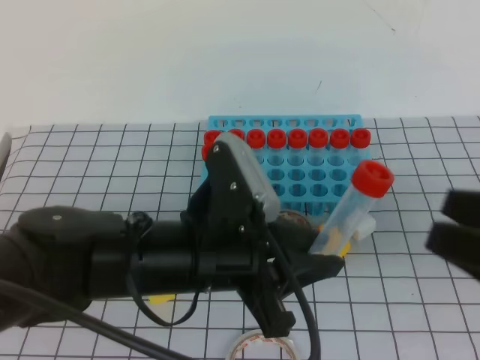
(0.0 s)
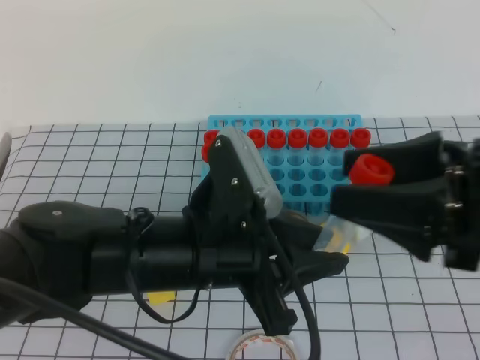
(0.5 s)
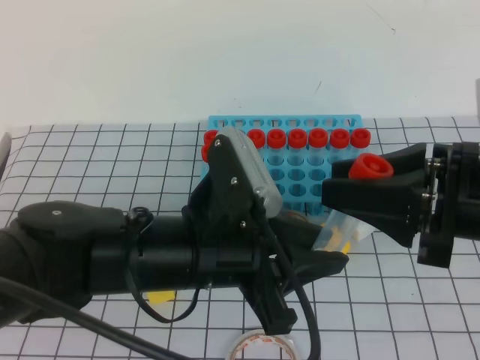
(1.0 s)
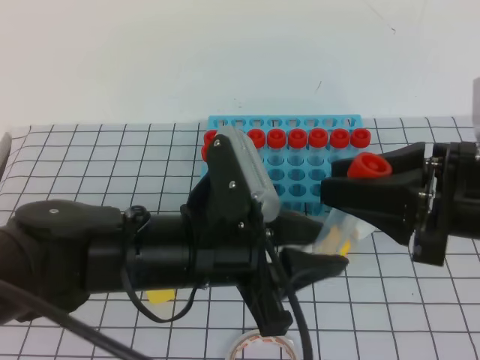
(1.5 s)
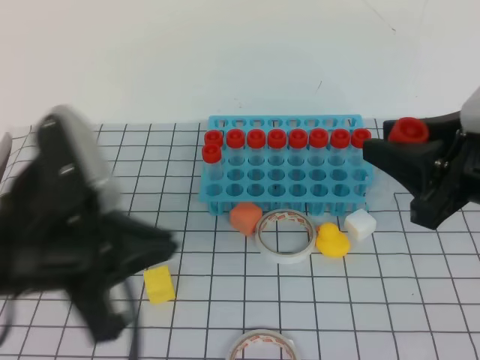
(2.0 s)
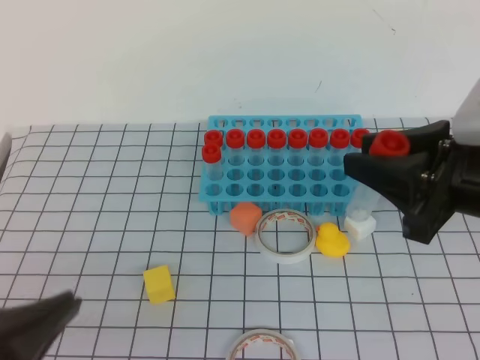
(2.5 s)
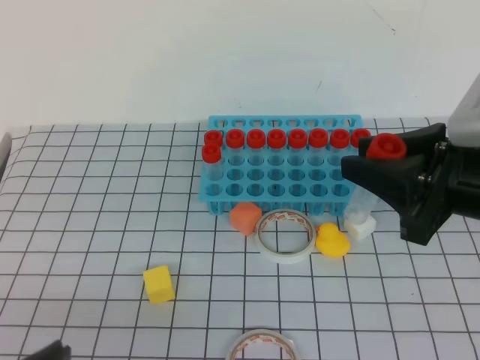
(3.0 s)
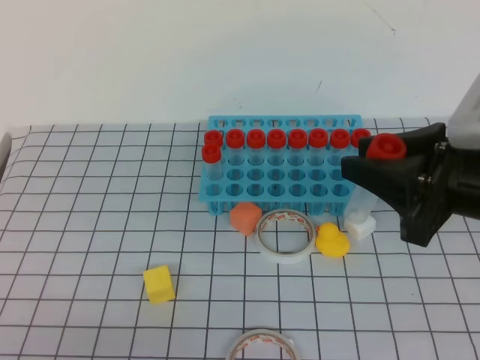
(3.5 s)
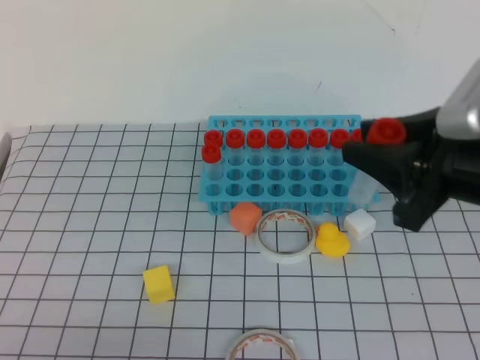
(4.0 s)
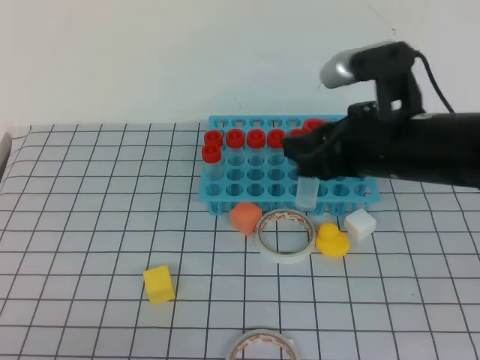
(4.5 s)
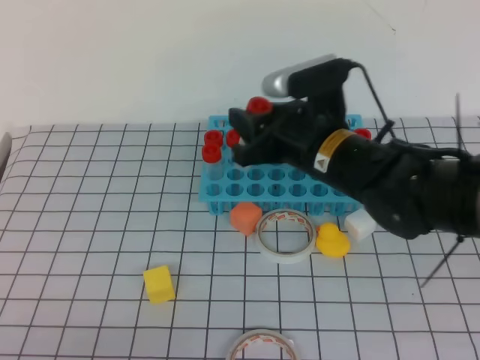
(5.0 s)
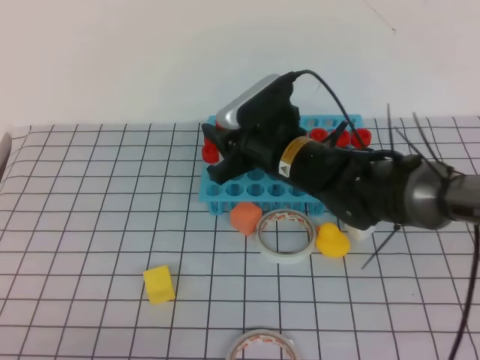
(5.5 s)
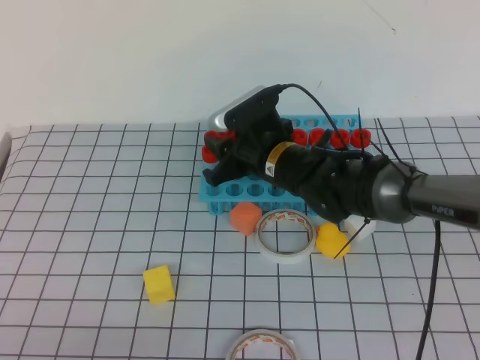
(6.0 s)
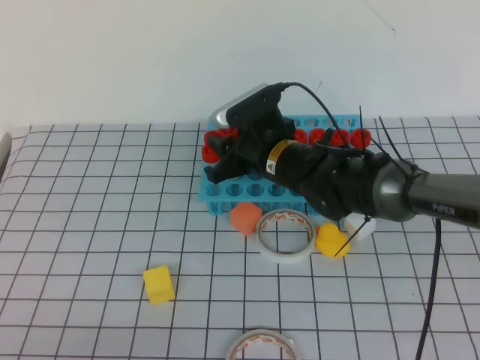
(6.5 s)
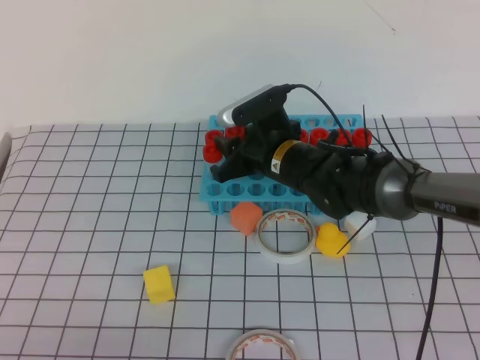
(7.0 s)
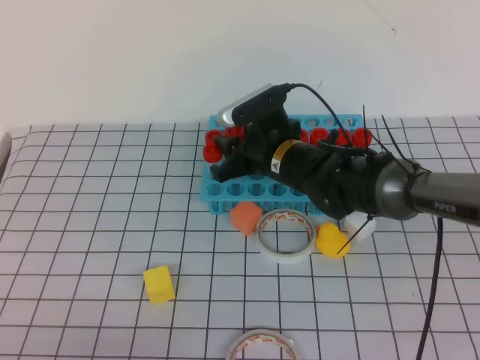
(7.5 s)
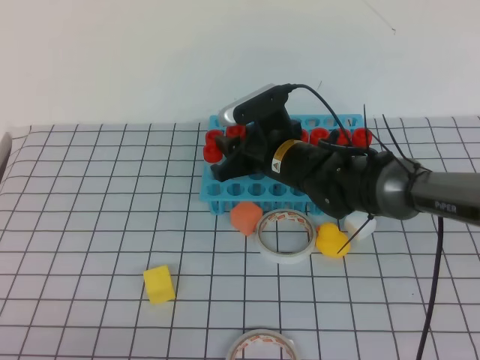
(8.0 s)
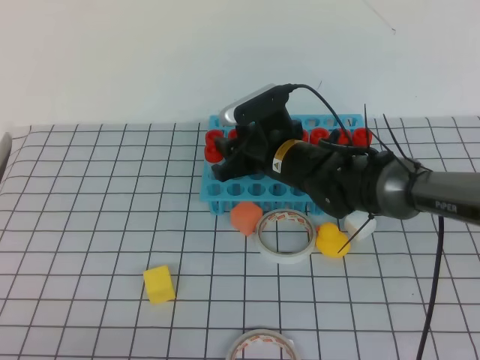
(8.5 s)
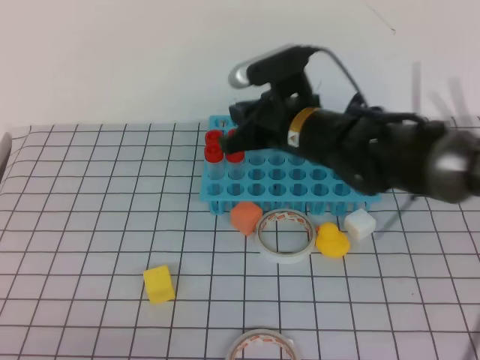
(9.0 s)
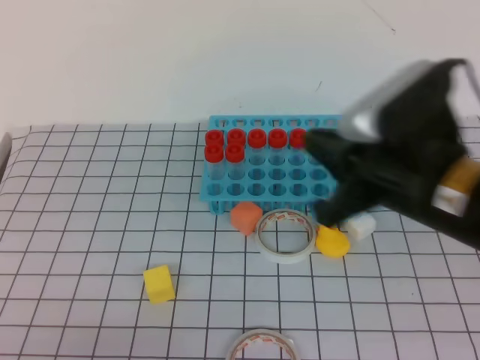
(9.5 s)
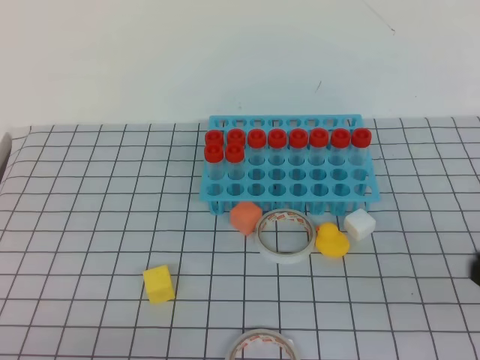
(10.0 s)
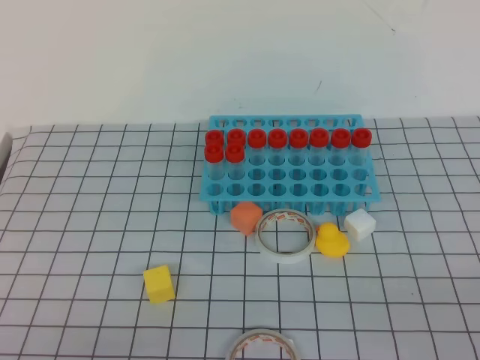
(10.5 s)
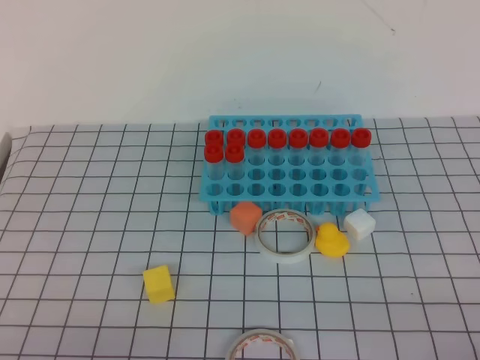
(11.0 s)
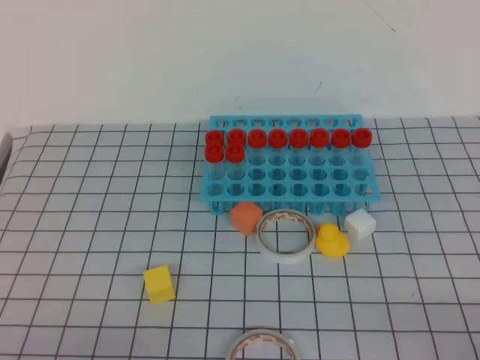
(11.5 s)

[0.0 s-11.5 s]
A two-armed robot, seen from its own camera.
0.0 to 2.0 s: The left gripper is displaced to the left and upward by roughly 10 cm; the right gripper moves forward, approximately 10 cm, and closes.
2.0 to 4.0 s: The left gripper goes some 20 cm backward, downward and to the left, and closes.
4.0 to 6.0 s: The right gripper travels forward, to the left and downward by approximately 25 cm.
6.0 to 7.5 s: Both grippers stay put.
7.5 to 9.5 s: The right gripper moves backward, upward and to the right, some 25 cm, and closes its fingers.
9.5 to 11.5 s: The right gripper moves to the right, backward and downward, some 30 cm.

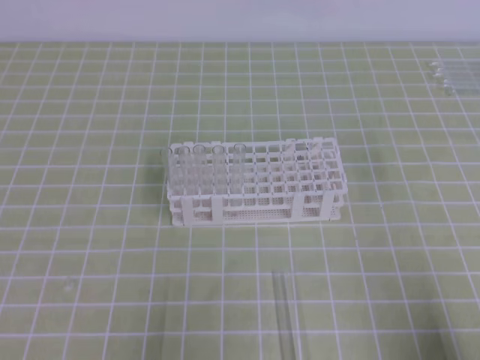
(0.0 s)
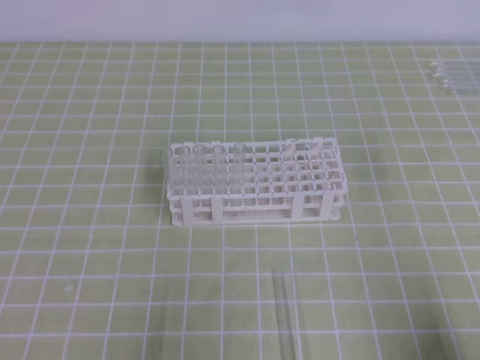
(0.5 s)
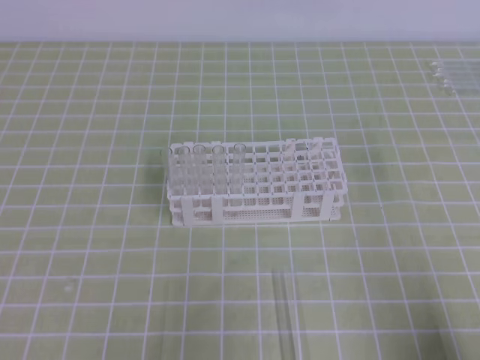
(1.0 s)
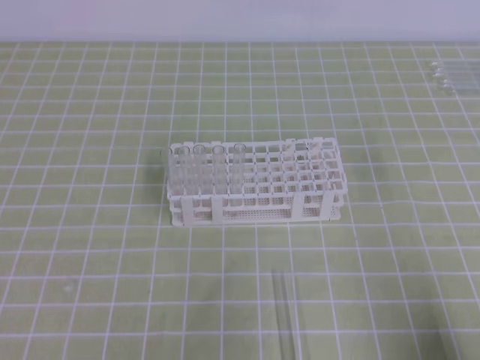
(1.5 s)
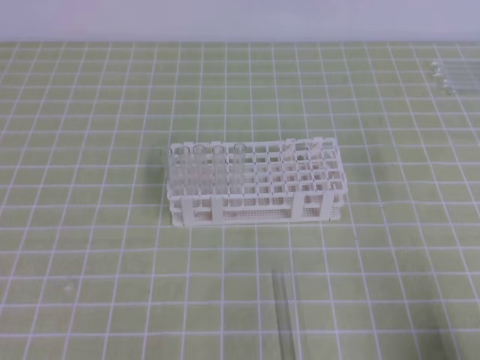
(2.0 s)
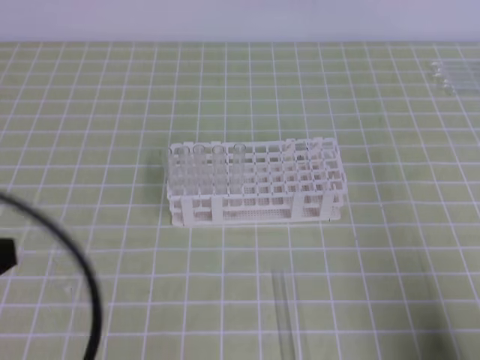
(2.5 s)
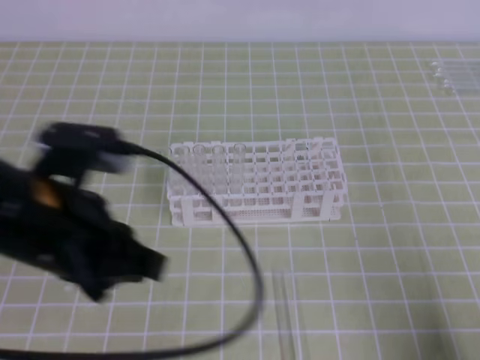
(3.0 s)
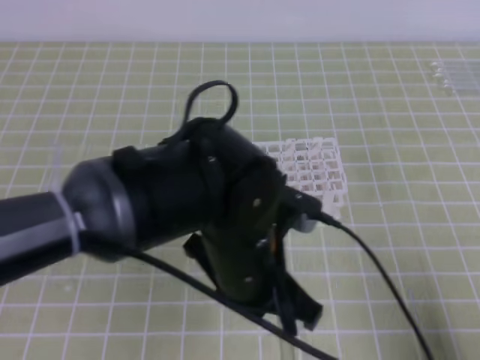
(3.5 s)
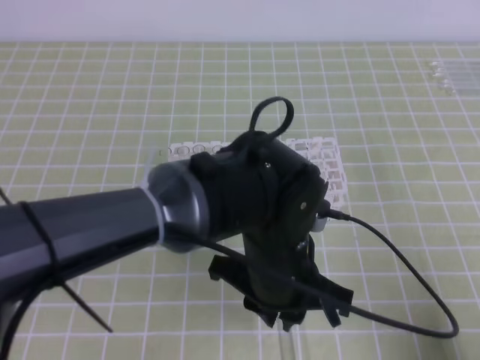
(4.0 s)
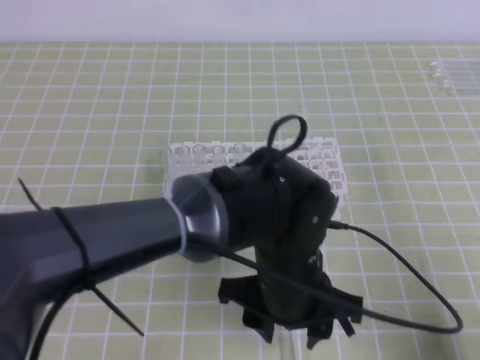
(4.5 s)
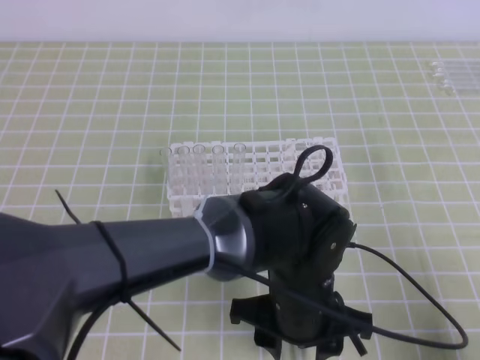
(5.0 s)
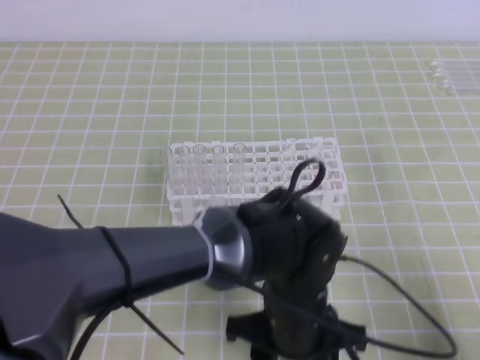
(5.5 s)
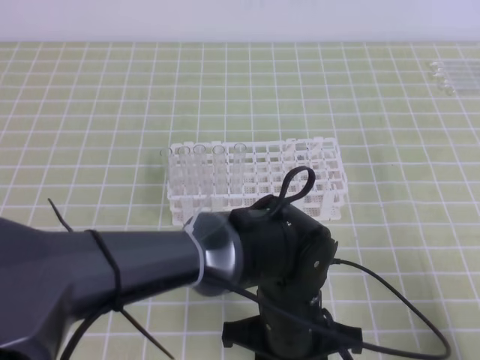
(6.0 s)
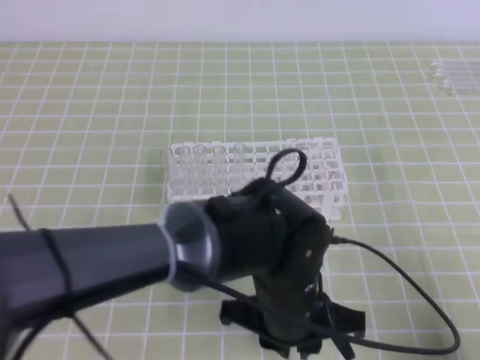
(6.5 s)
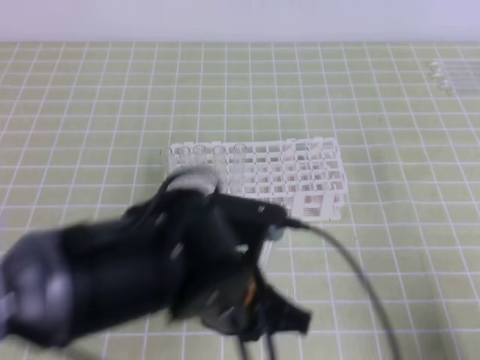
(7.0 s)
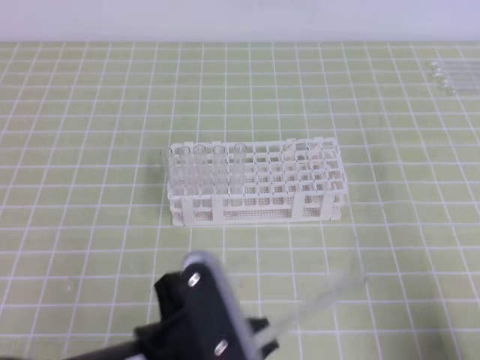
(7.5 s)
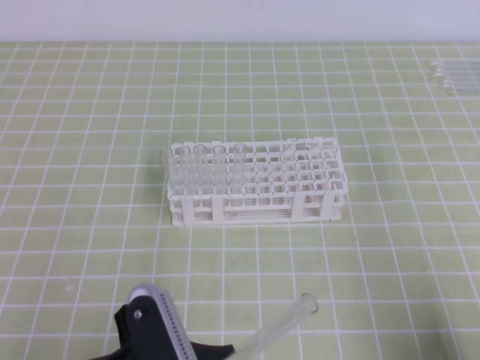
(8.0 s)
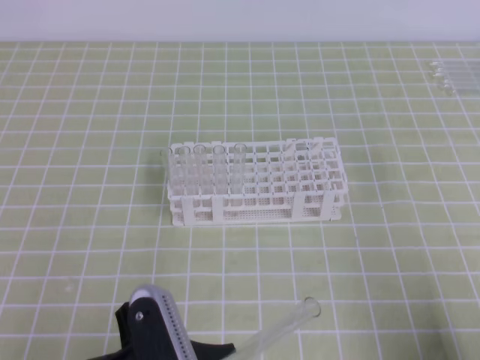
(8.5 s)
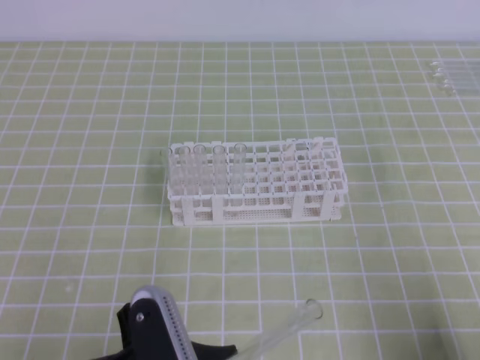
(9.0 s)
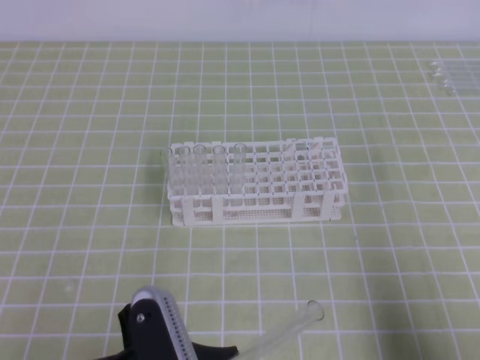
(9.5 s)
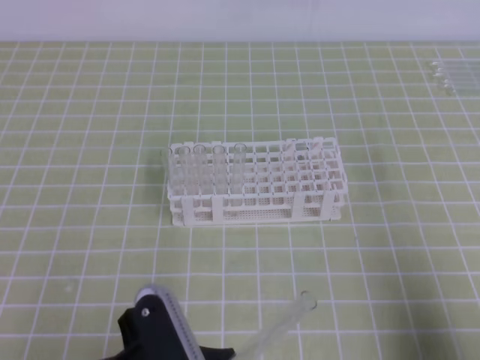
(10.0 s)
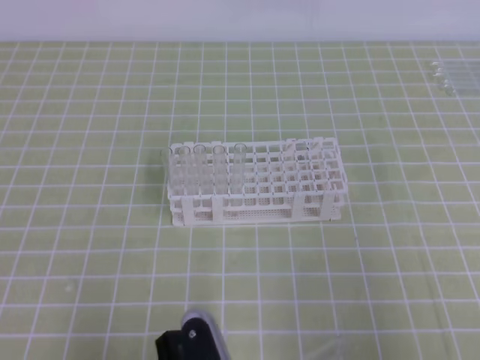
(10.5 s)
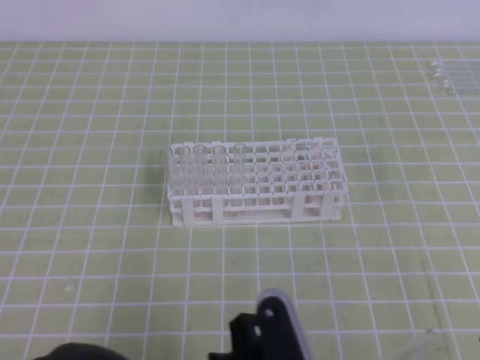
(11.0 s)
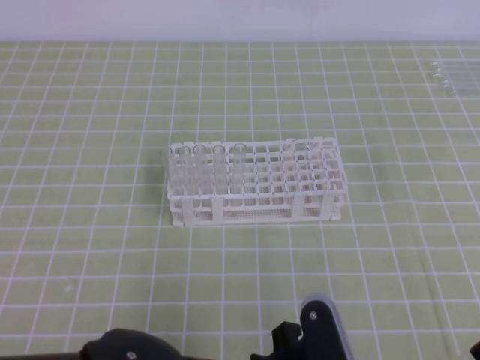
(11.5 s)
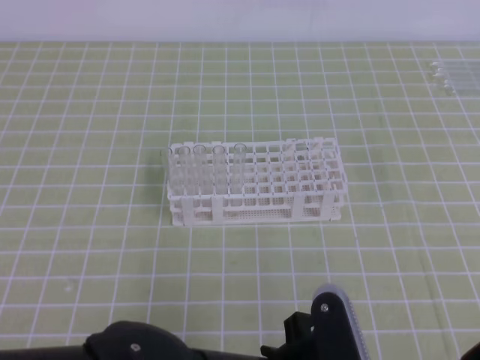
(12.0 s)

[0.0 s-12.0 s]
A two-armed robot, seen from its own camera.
2.0 to 4.0 s: The left gripper heads to the right and forward, covering about 35 cm, and opens up.
4.0 to 6.0 s: The left gripper shifts about 5 cm downward, and opens, then closes once more.
6.0 to 8.0 s: The left gripper moves to the left and backward, about 20 cm, and closes up.
10.0 to 12.0 s: The right gripper heads to the left, covering about 5 cm, and opens up. The left gripper travels to the right by some 10 cm.

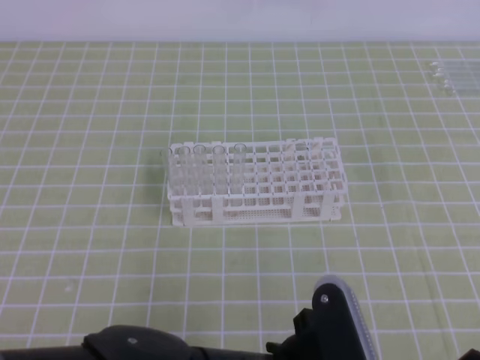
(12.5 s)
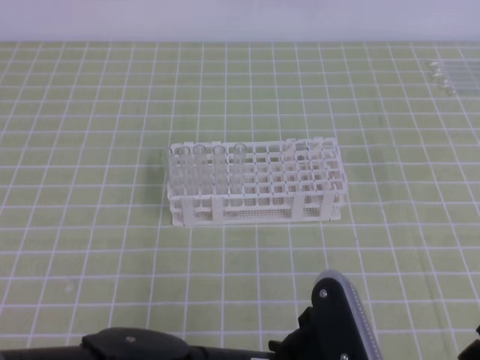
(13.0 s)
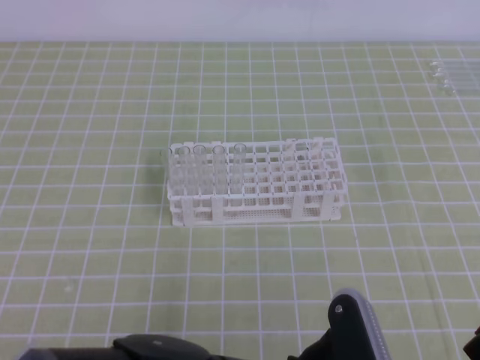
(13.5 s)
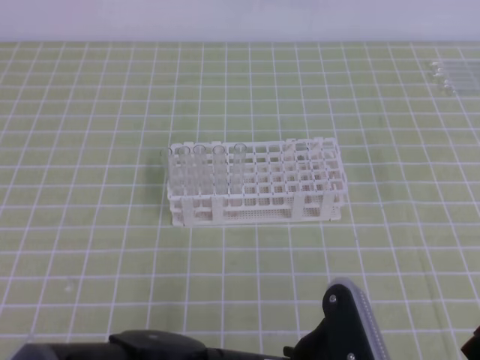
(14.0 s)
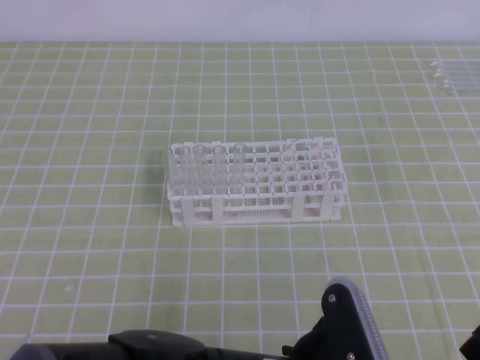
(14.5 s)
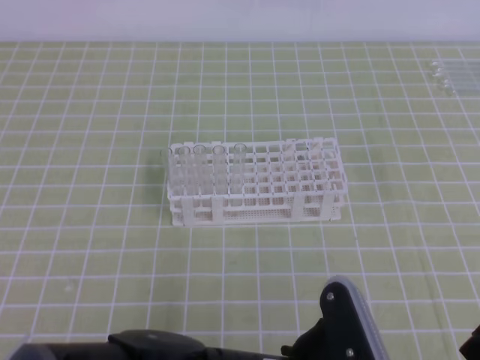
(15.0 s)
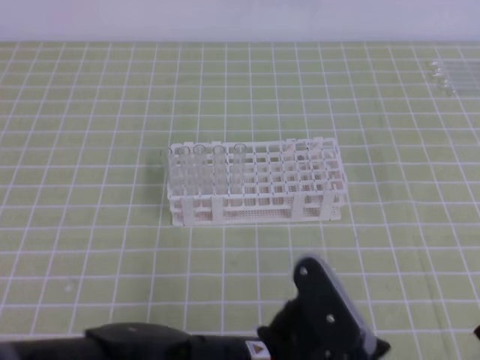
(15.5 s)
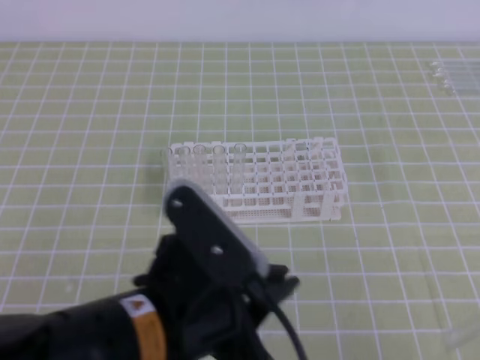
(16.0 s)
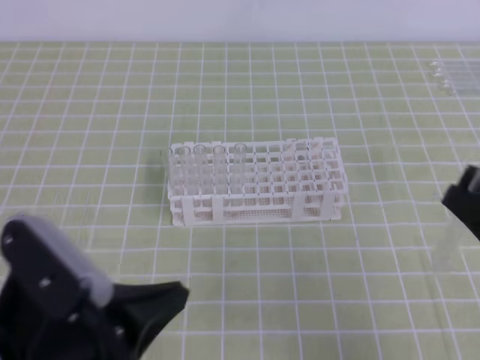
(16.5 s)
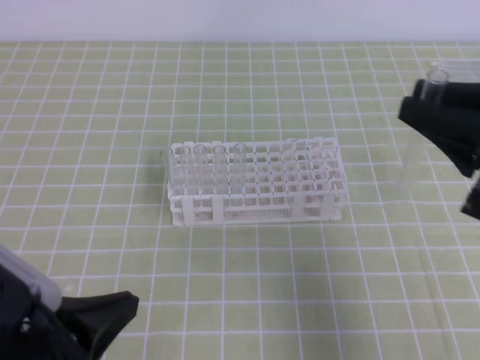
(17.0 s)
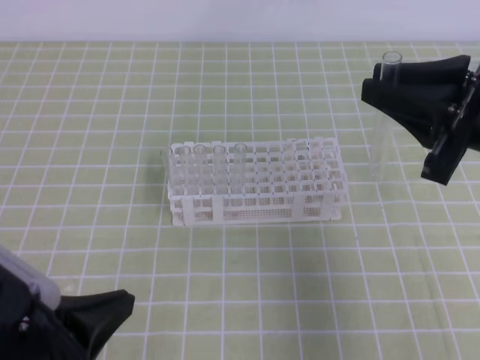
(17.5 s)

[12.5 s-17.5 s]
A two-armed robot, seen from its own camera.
12.5 to 15.0 s: The left gripper opens up, while the right gripper closes up.
15.0 to 17.5 s: The left gripper moves to the left, about 20 cm, and closes. Meanwhile the right gripper shifts roughly 25 cm forward and upward.
